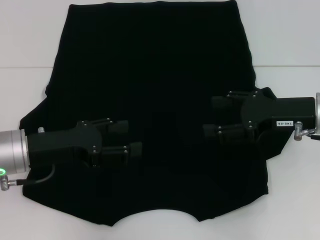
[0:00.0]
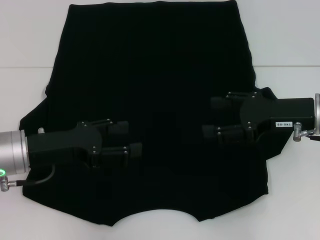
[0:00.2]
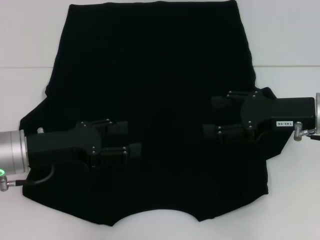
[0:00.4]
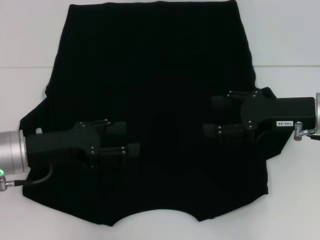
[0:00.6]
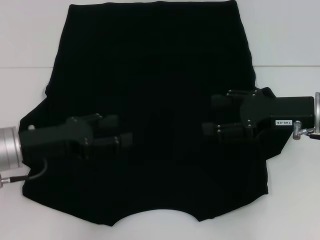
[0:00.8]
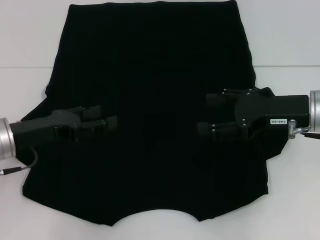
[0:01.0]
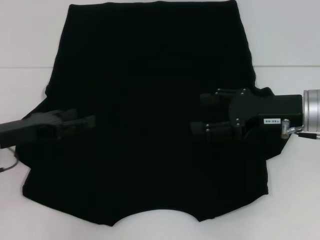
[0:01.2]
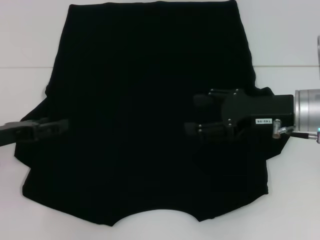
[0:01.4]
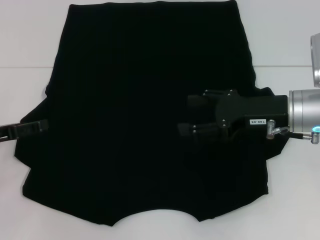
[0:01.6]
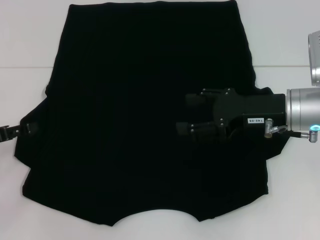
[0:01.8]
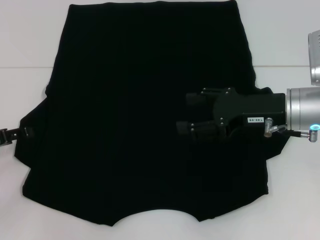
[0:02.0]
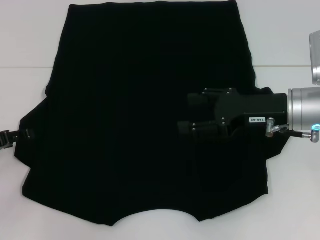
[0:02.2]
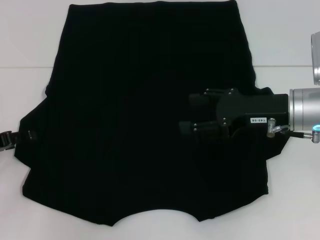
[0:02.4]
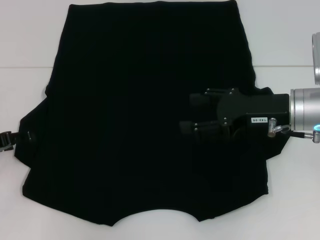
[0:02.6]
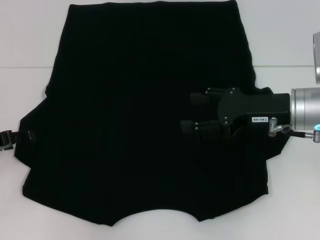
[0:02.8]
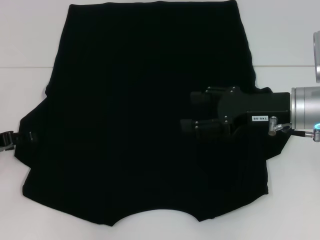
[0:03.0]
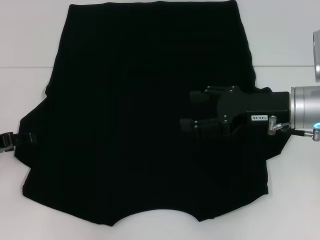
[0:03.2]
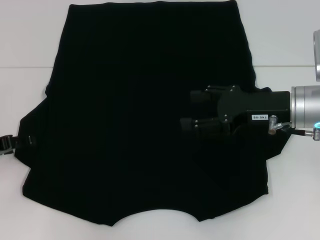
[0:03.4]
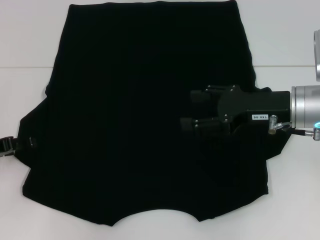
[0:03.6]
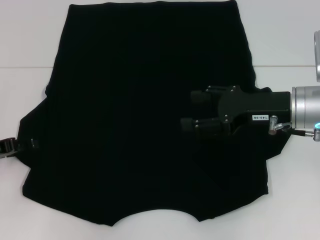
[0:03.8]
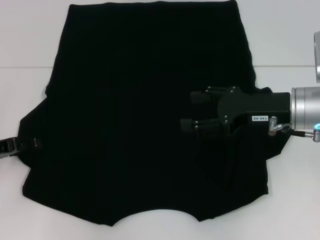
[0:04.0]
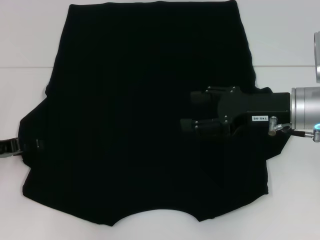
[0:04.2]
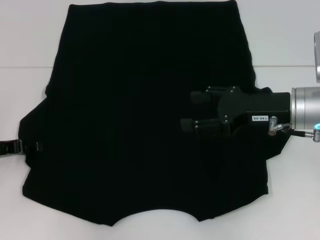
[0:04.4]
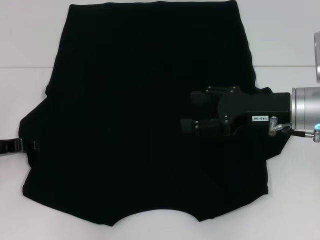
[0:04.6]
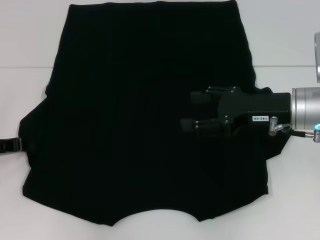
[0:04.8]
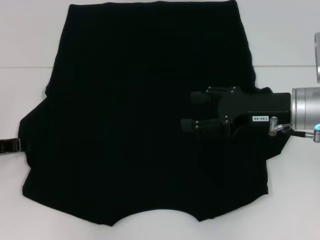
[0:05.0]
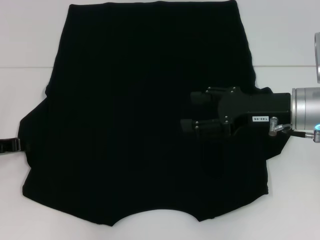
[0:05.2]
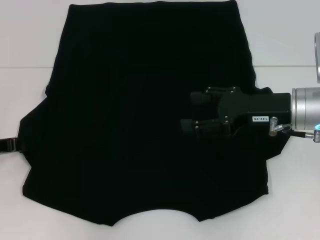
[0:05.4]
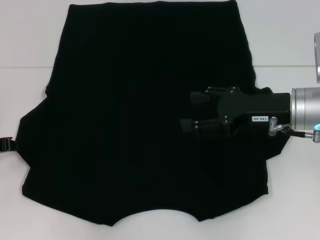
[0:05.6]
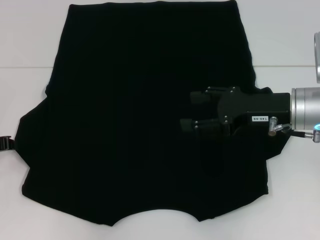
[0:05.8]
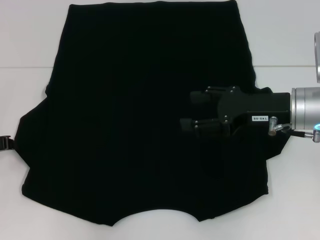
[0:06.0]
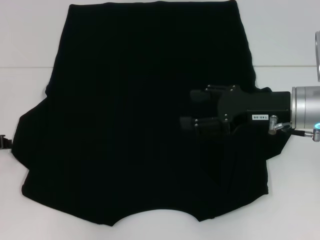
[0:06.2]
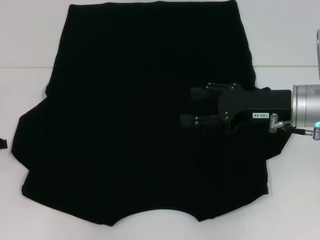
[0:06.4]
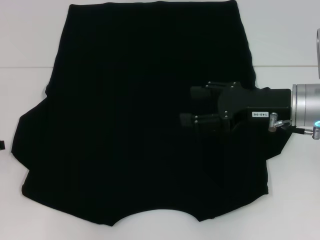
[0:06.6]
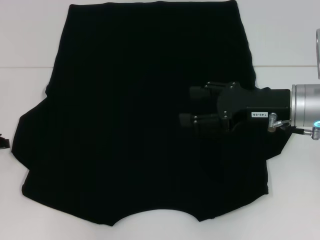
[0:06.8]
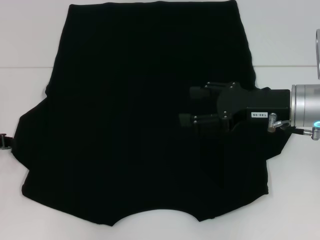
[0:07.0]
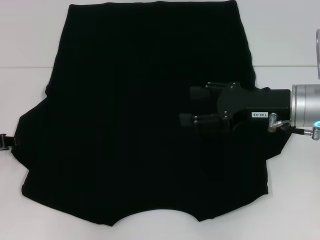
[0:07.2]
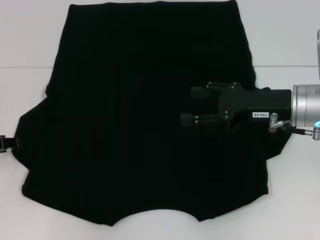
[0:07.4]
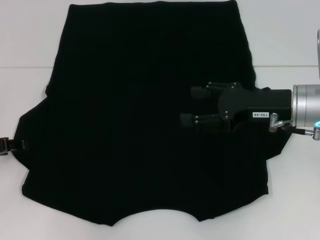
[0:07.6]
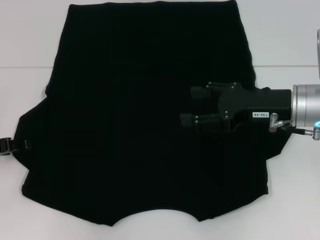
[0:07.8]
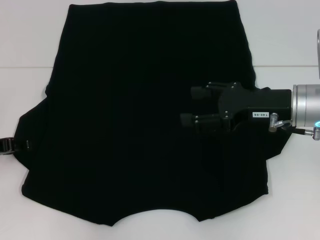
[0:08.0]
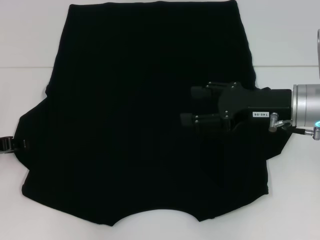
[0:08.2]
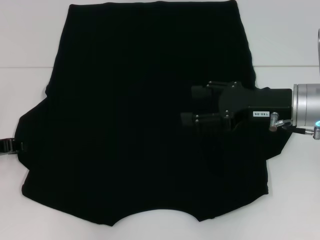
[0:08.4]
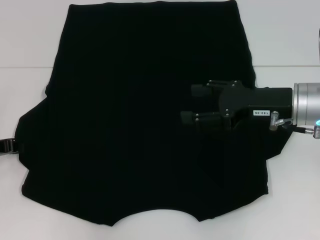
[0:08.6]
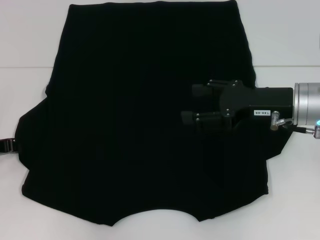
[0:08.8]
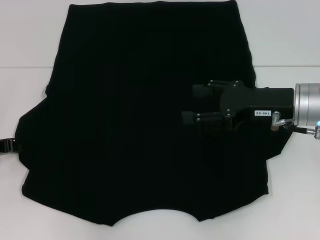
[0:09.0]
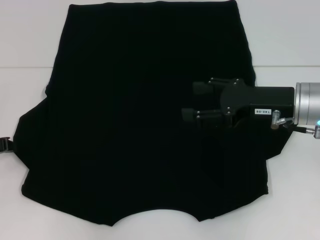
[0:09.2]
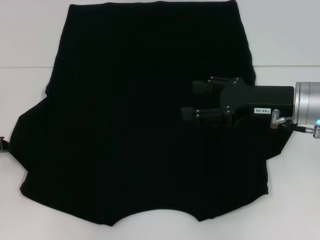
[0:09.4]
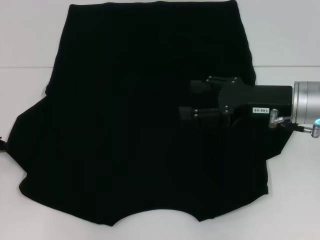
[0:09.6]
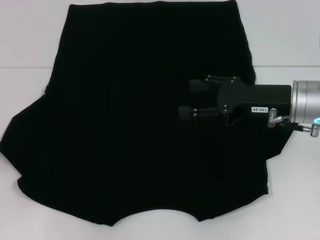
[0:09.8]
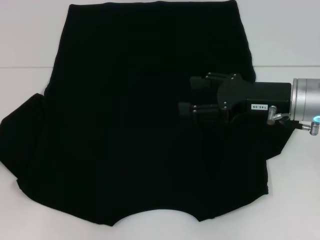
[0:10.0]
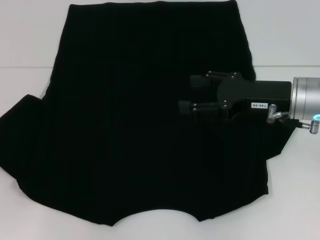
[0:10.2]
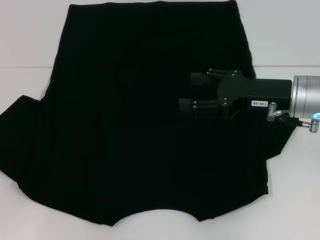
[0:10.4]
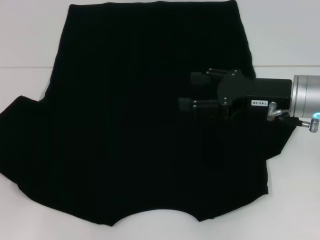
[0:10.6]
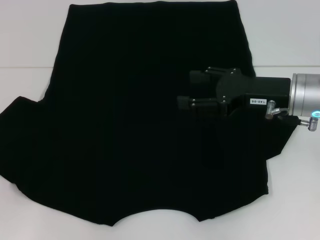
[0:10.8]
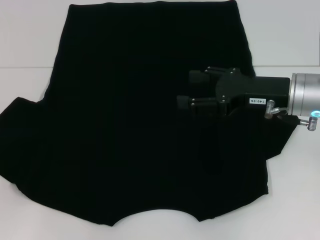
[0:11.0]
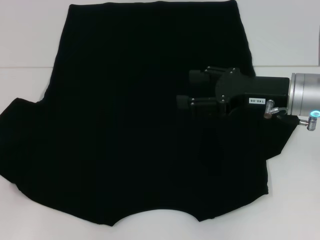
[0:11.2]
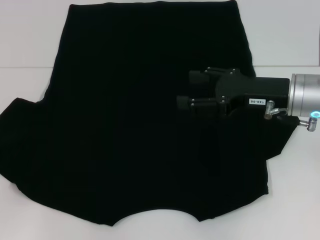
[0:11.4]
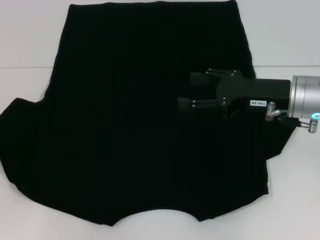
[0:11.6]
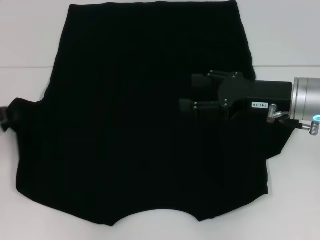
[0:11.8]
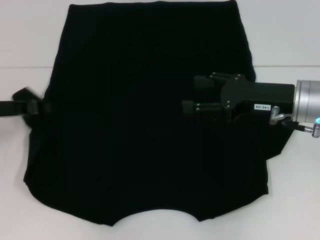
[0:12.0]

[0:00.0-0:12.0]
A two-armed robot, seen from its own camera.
0:00.0 to 0:01.6: The left gripper moves to the left, about 10 cm.
0:01.6 to 0:03.0: The grippers move only a little.
0:04.4 to 0:06.0: The left gripper closes its fingers.
0:06.0 to 0:07.6: The left gripper opens.
0:09.0 to 0:10.4: The left gripper ends up some 5 cm from where it was.
0:10.4 to 0:12.0: The left gripper heads to the right and forward, covering some 10 cm.

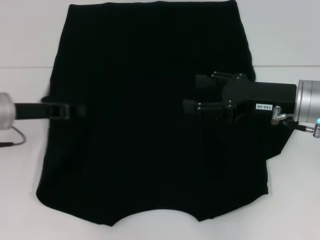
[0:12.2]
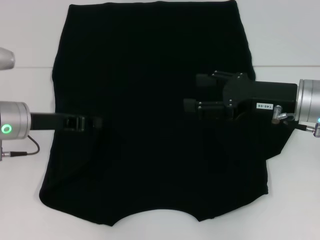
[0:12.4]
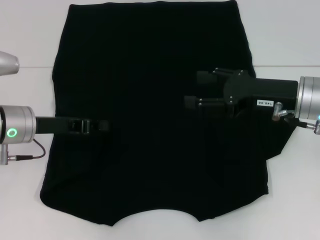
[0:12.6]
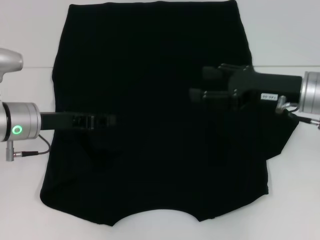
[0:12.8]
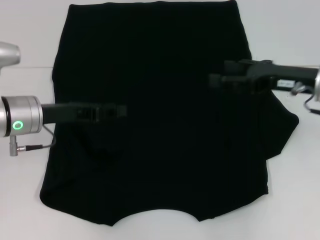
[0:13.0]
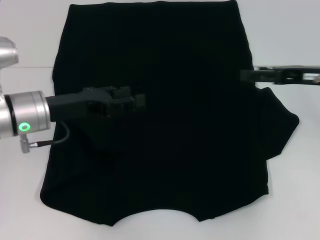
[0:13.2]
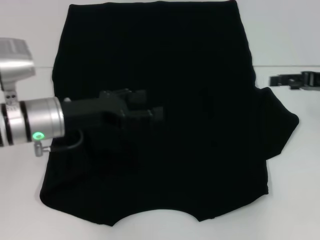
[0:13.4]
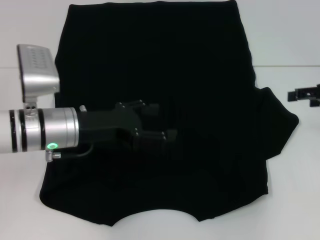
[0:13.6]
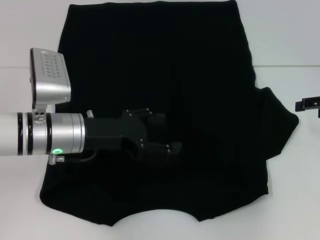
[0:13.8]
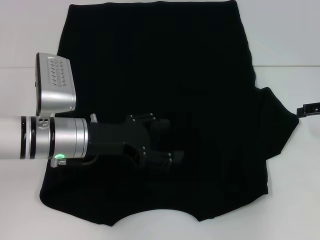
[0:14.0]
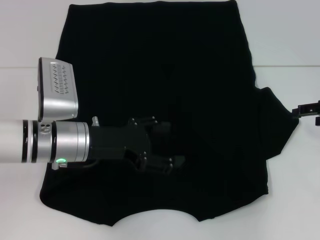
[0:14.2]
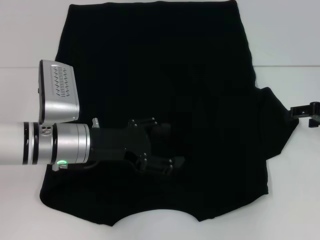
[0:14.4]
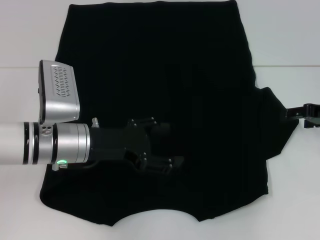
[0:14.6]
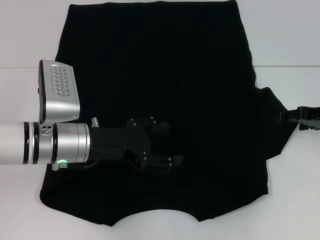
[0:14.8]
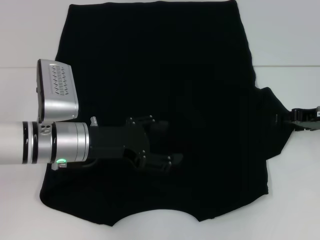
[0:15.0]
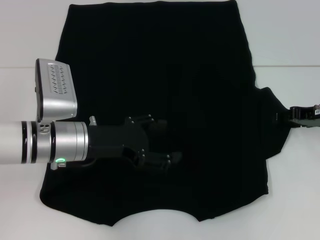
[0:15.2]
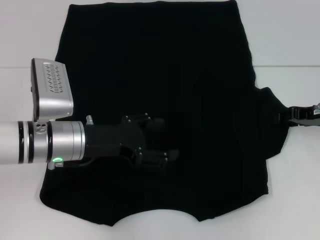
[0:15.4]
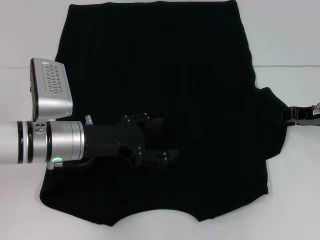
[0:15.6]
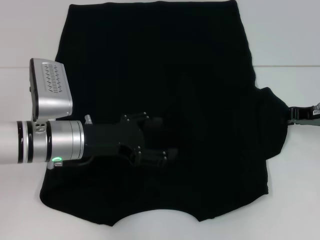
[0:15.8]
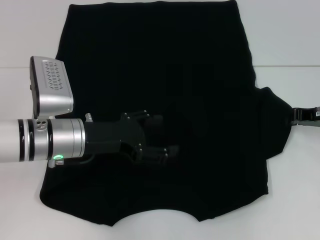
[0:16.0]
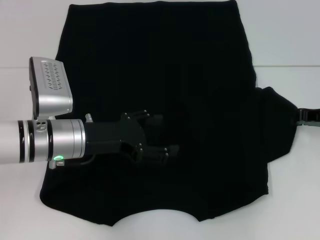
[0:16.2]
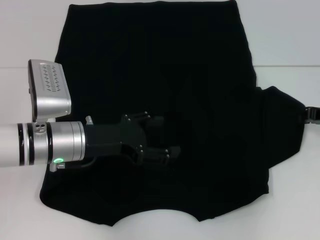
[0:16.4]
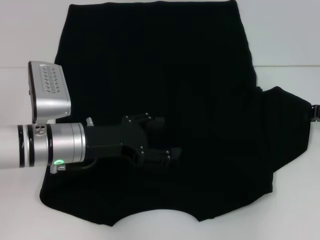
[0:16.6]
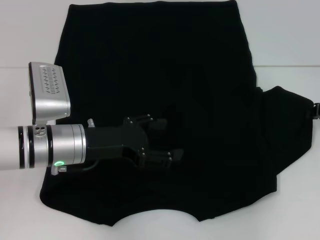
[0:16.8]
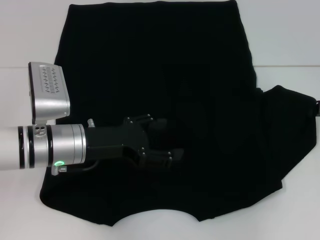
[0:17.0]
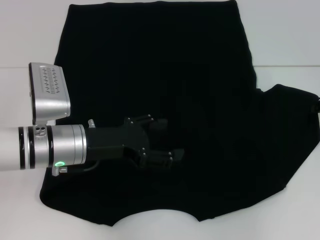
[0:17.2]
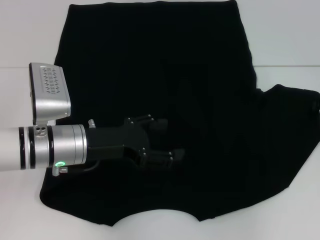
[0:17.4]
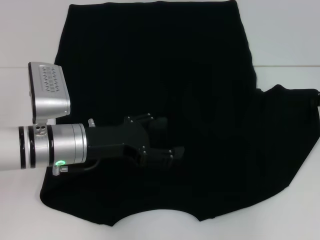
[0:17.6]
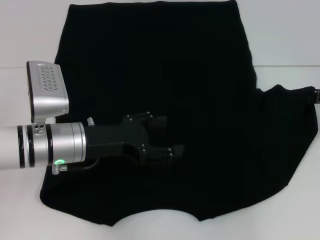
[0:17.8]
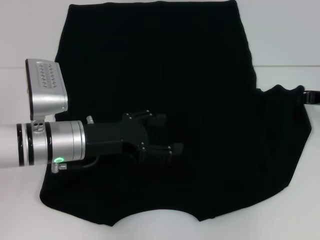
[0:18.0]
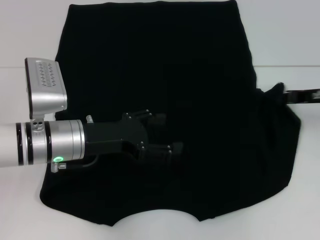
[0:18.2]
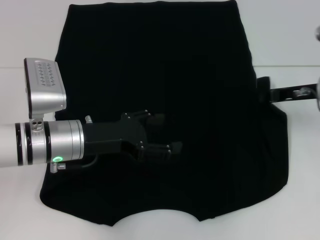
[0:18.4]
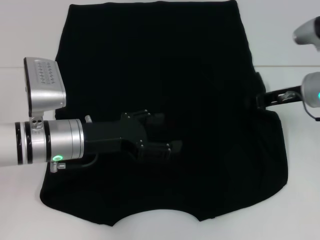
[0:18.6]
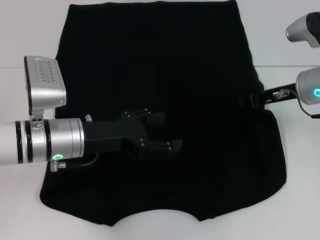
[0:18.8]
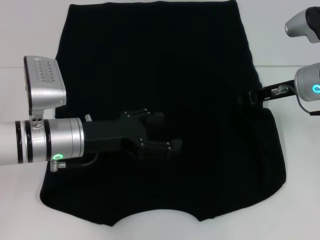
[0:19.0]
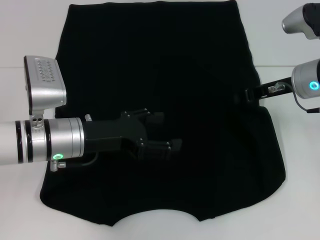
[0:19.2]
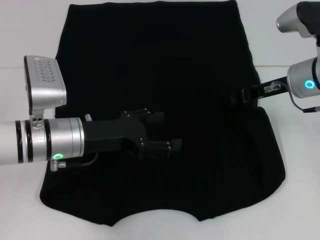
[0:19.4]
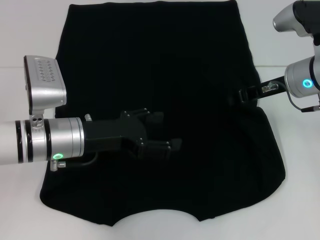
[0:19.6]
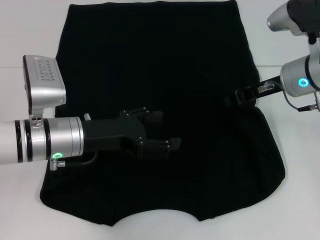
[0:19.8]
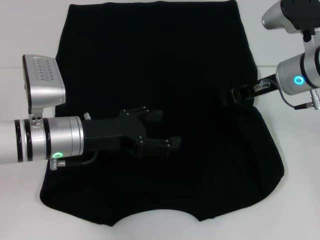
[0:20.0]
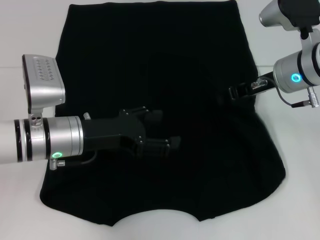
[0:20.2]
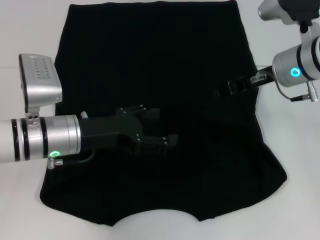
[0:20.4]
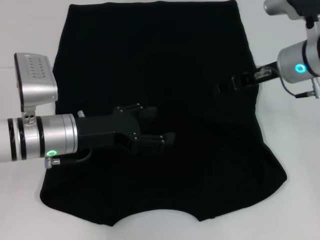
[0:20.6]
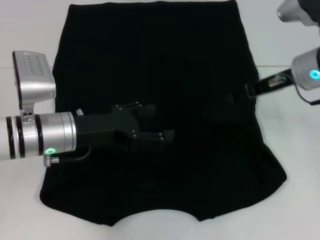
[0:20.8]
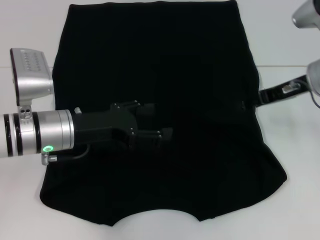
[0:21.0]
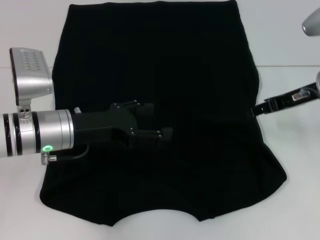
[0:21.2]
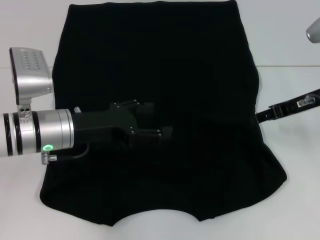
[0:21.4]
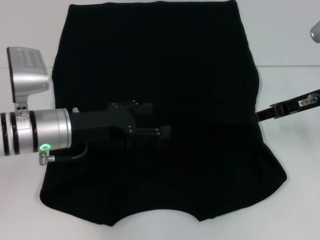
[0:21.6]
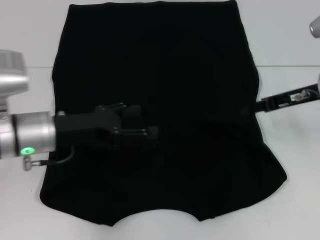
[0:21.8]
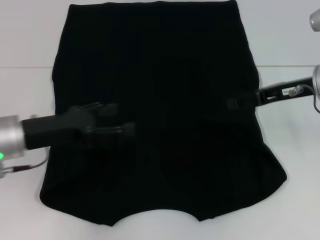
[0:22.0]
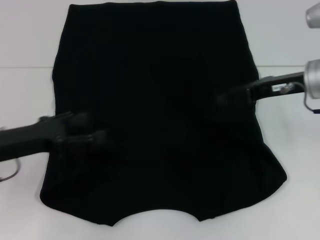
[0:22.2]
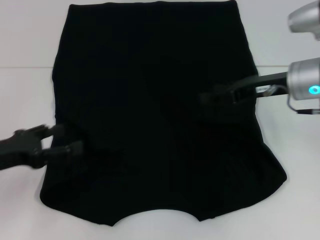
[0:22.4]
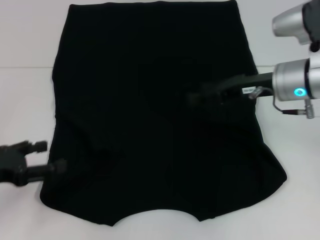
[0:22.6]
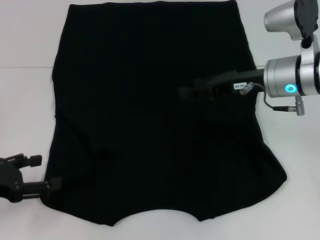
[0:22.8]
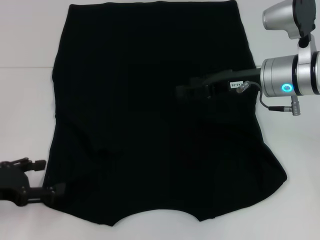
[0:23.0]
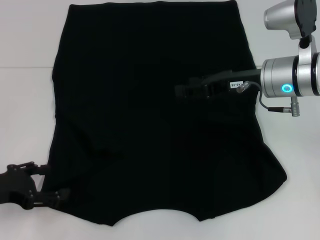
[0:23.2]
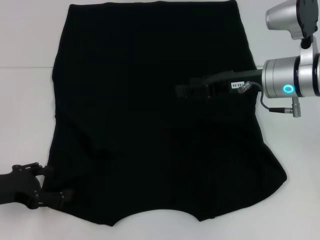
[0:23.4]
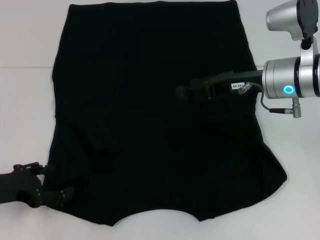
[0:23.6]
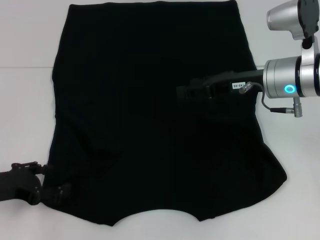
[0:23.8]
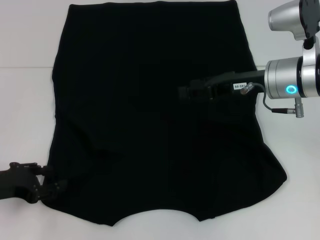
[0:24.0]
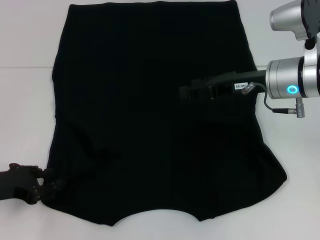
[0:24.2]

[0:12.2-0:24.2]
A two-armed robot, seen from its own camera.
Step, 0:12.6 to 0:20.2: Fold the bottom right sleeve with your right hand.
0:12.2 to 0:13.8: Both grippers move to the right, approximately 10 cm. The left gripper opens its fingers.
0:13.8 to 0:15.2: The right gripper shifts by some 5 cm.
0:15.2 to 0:16.6: The right gripper closes.
0:16.6 to 0:18.2: There are only small adjustments of the grippers.
0:18.2 to 0:19.8: The right gripper heads to the left, covering some 10 cm.
0:19.8 to 0:21.2: The right gripper moves about 5 cm, and opens.
0:21.2 to 0:22.6: The right gripper moves to the left, about 5 cm. Meanwhile the left gripper moves to the left and backward, about 15 cm.
0:22.6 to 0:24.2: There are only small adjustments of the grippers.
